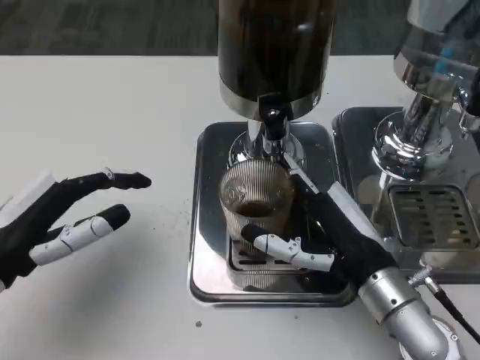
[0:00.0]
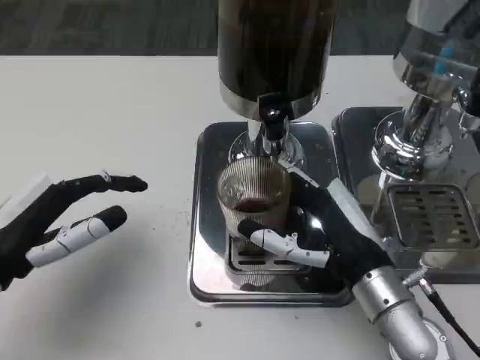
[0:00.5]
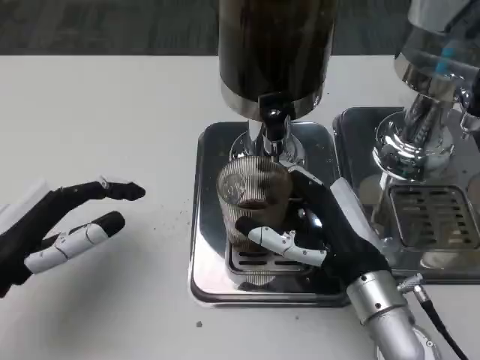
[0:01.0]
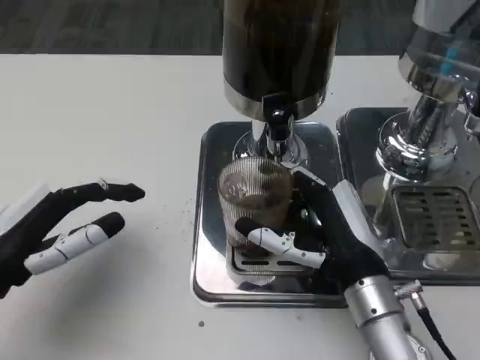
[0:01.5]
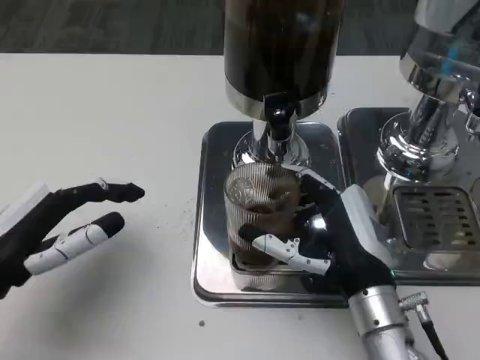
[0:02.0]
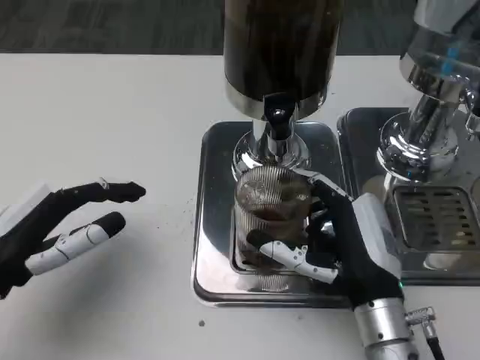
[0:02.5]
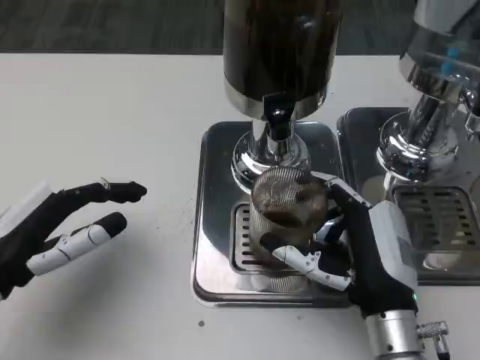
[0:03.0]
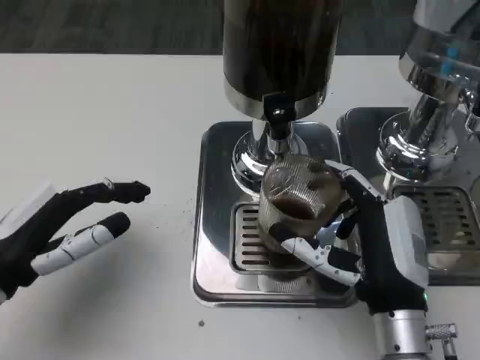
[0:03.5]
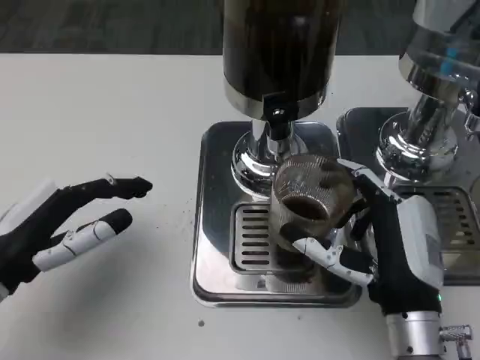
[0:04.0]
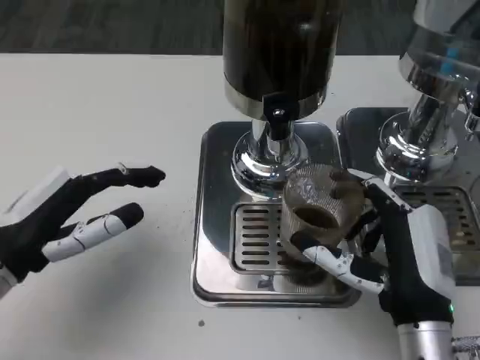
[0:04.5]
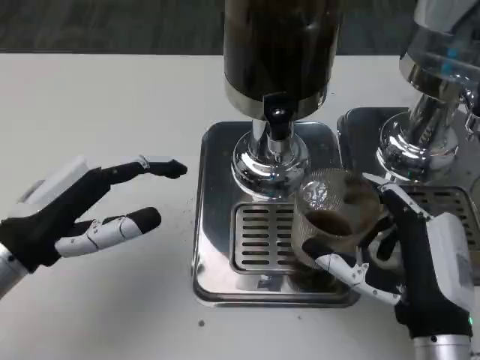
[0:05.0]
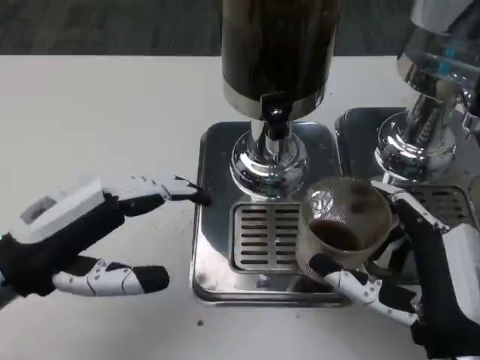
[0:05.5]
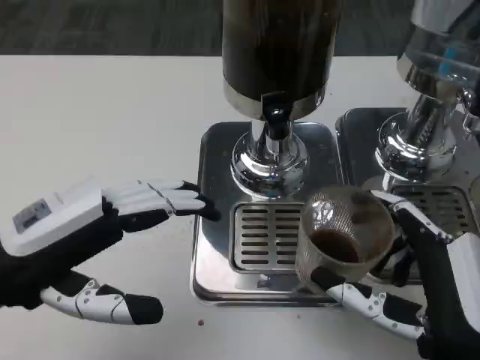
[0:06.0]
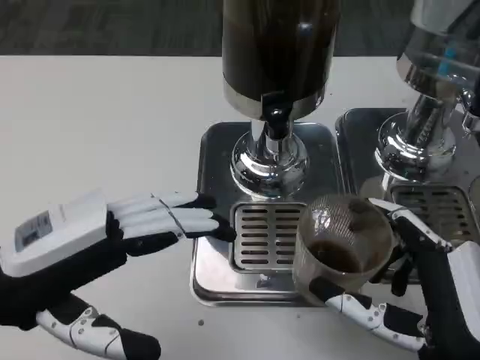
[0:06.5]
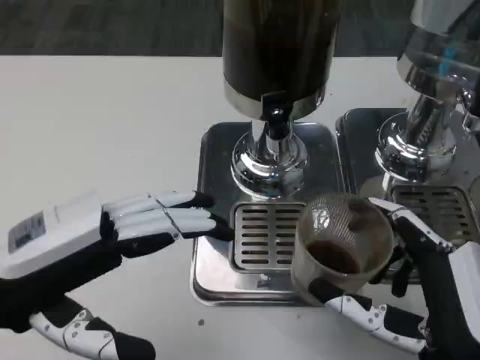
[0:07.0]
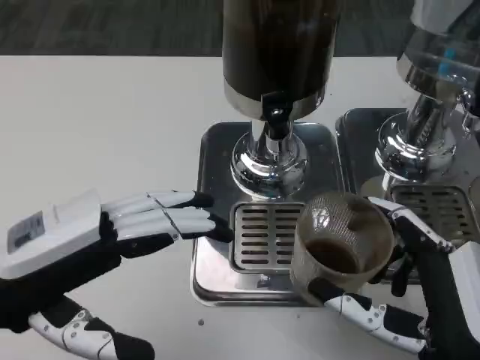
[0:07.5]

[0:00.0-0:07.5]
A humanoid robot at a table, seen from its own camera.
Task of the whole recording: Grasp the cup under the faucet to collect the drink, then remove the cup.
0:02.0 to 0:04.0: The hands make only small movements.
0:04.0 to 0:05.5: The right hand shifts approximately 5 cm backward.

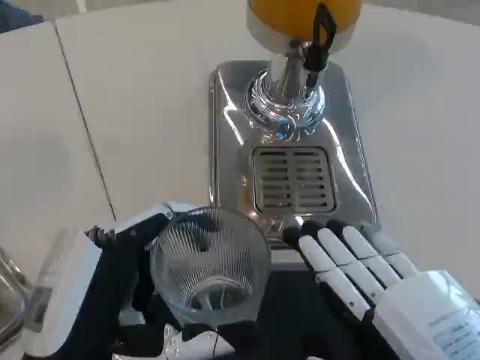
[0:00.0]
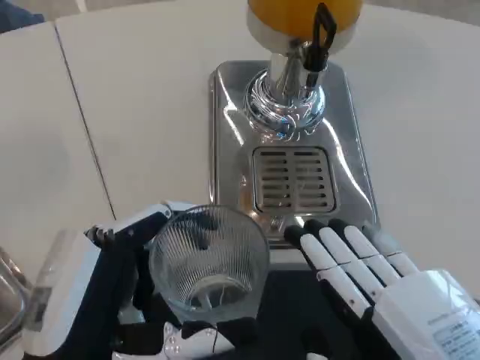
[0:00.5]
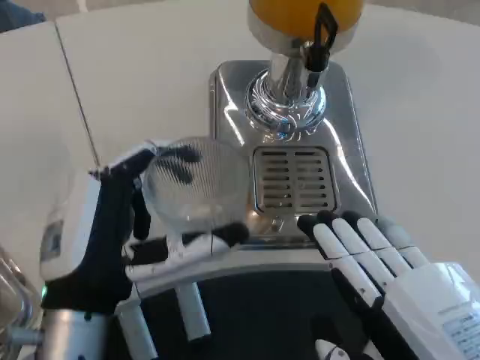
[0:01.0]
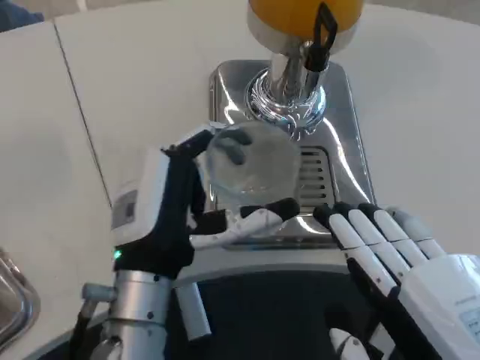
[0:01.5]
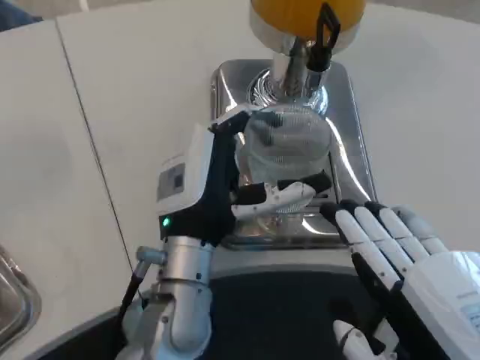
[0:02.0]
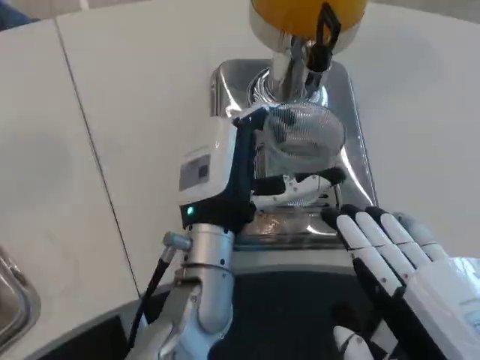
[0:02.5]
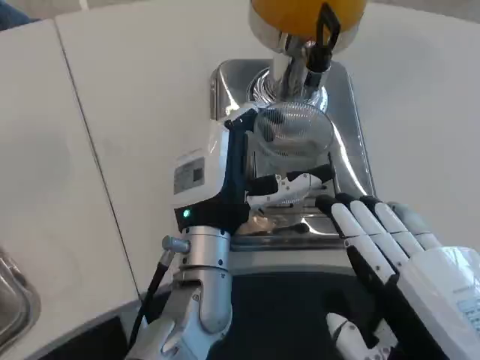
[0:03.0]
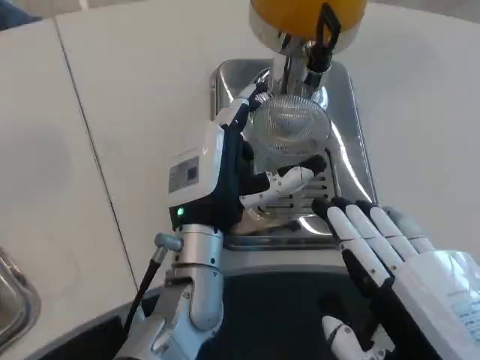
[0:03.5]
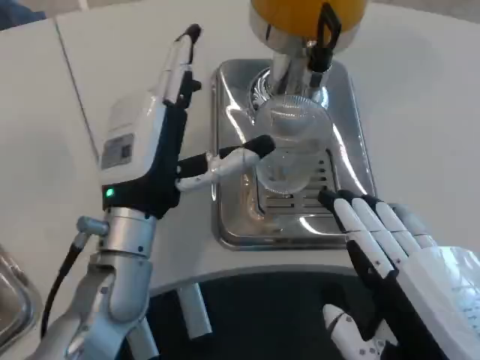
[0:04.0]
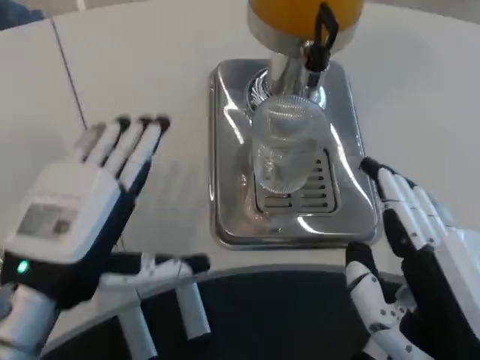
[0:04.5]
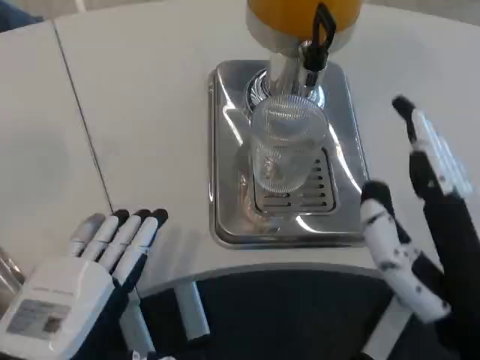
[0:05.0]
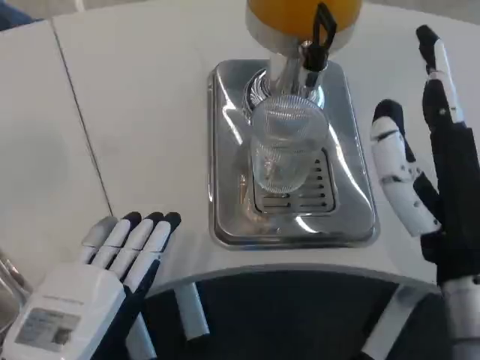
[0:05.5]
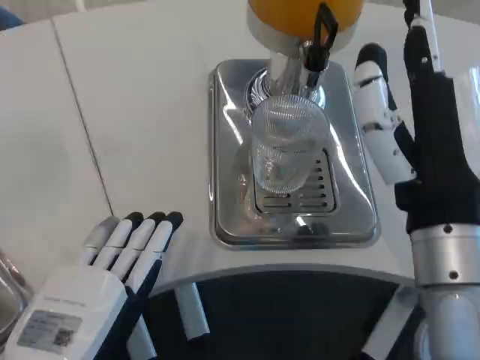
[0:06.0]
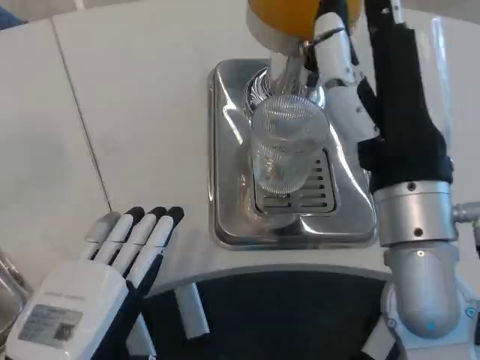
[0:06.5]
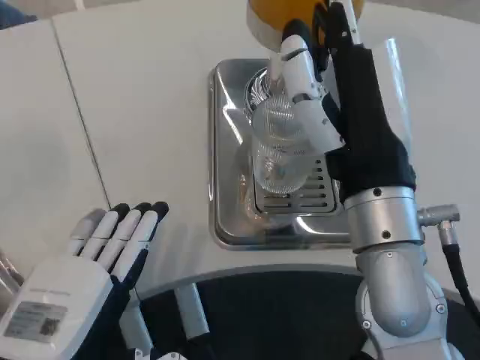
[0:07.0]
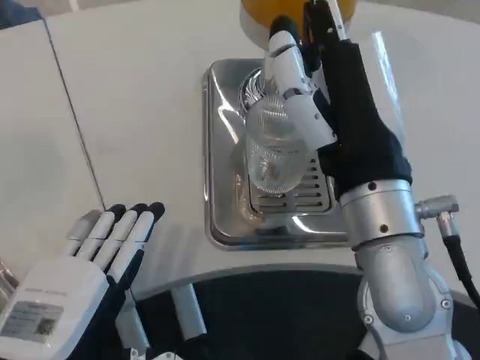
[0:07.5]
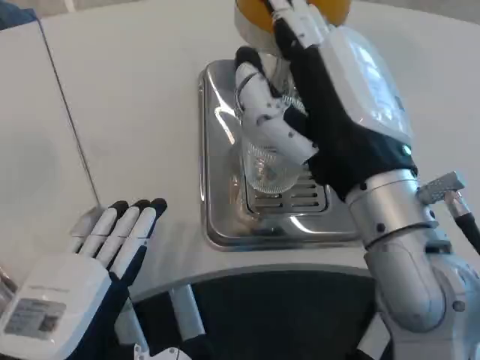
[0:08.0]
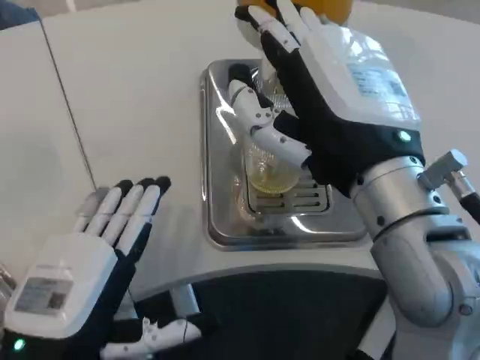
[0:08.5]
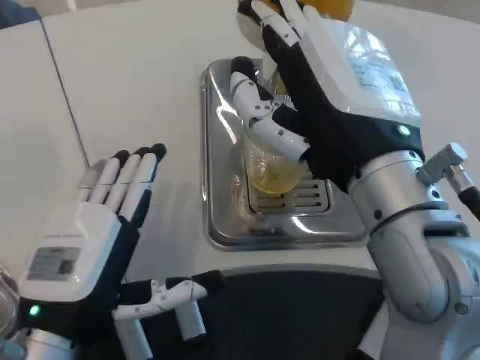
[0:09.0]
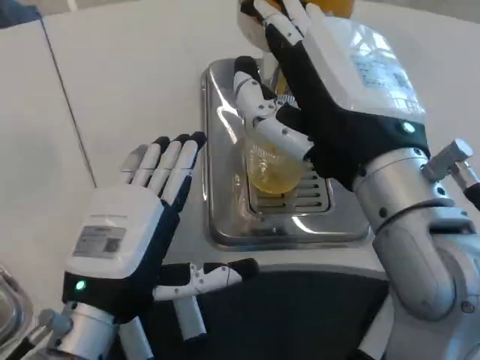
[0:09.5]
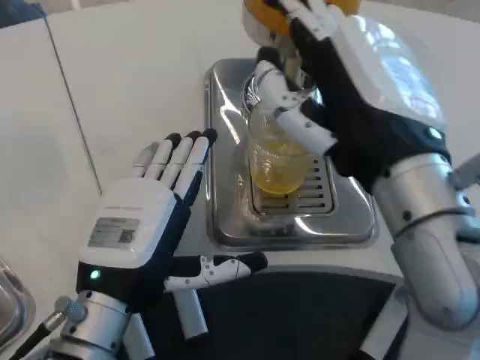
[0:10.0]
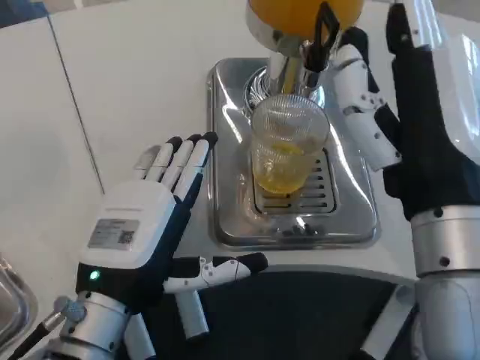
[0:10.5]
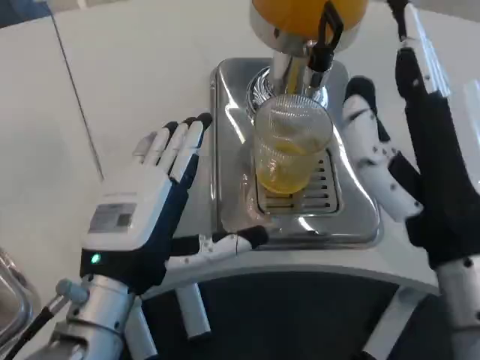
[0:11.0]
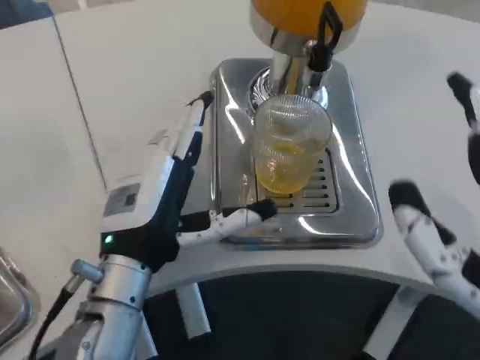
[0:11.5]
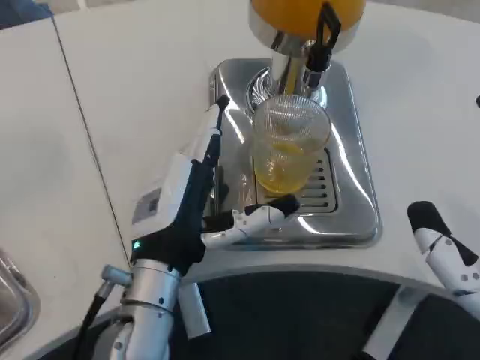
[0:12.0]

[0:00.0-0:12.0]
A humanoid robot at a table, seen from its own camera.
Task of the whole recording: Grasp the cup under the faucet to collect the drink, then remove the cup.
0:00.0 to 0:02.0: The left hand is displaced forward and to the right by about 20 cm.
0:02.0 to 0:04.0: The left hand shifts approximately 5 cm to the left.
0:04.0 to 0:06.0: The right hand heads forward, covering some 10 cm. Meanwhile the left hand goes approximately 15 cm backward.
0:08.0 to 0:10.0: The left hand is displaced forward by about 10 cm.
0:10.0 to 0:12.0: The right hand moves backward, to the right and downward, roughly 15 cm. Meanwhile the left hand ends up roughly 5 cm from where it was.

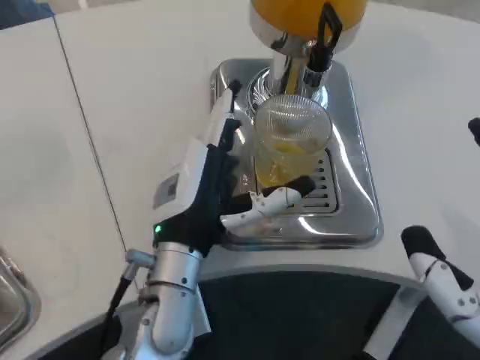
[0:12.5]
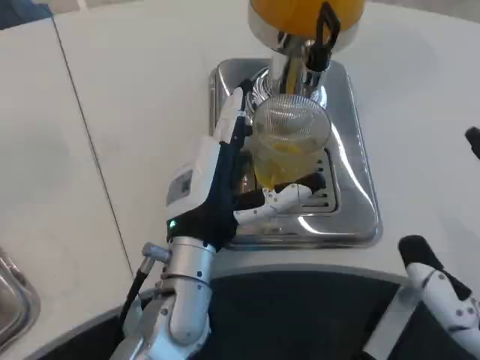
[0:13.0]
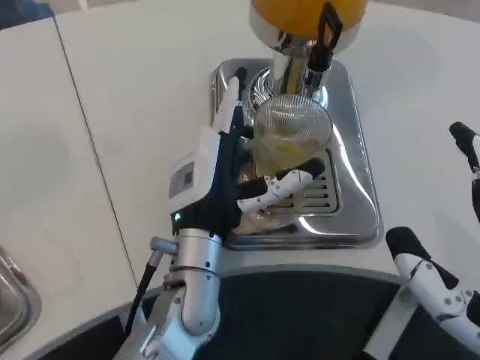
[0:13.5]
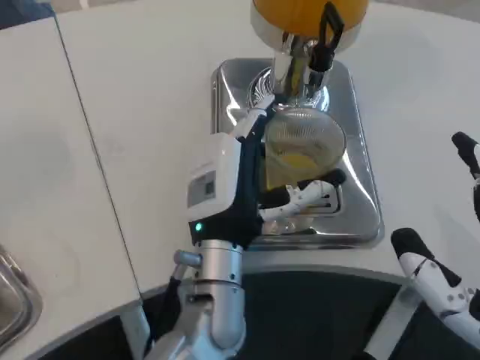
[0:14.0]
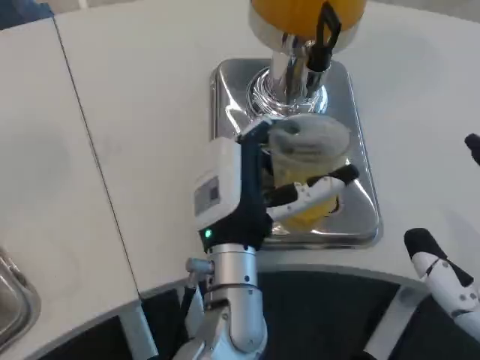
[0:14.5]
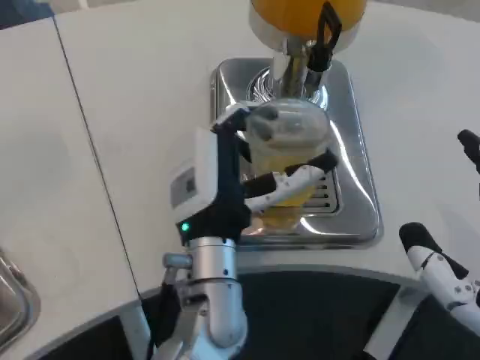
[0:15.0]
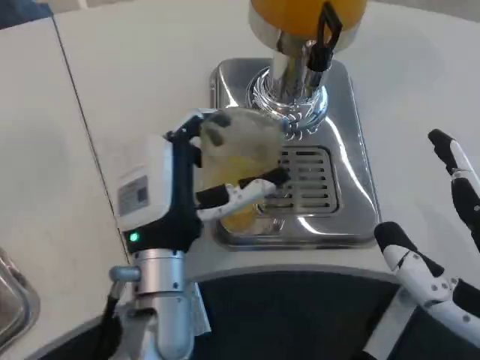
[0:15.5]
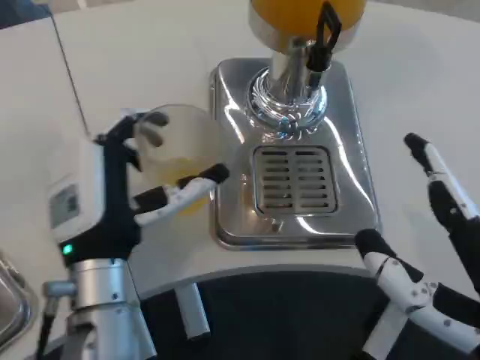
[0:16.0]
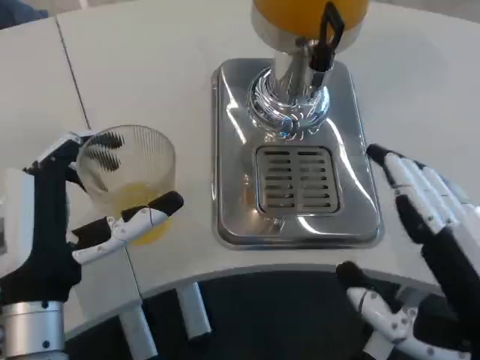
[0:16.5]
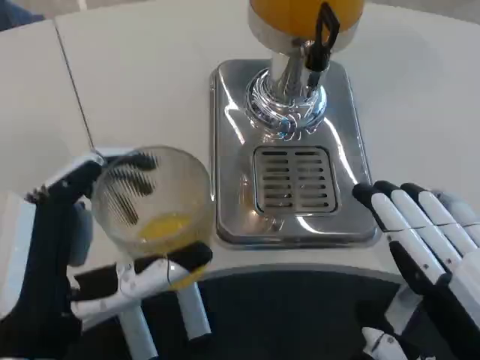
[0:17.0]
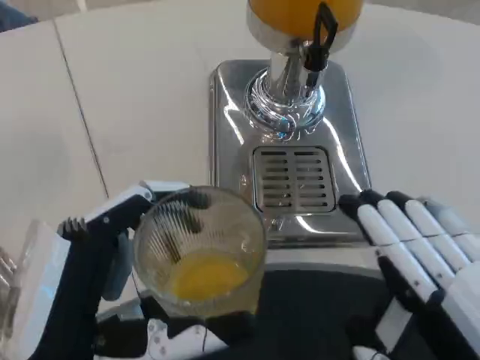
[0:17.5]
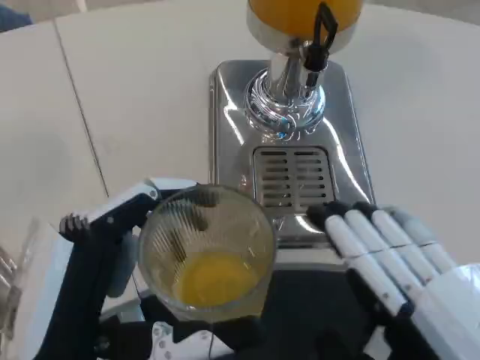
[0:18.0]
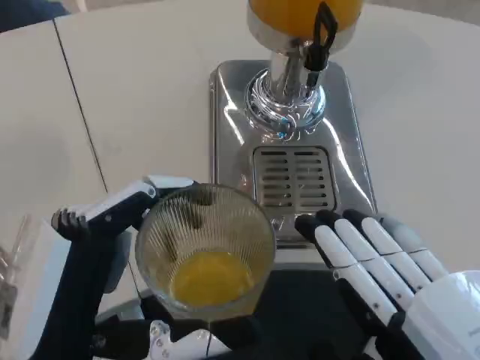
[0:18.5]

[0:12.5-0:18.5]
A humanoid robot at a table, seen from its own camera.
Task of the whole recording: Grasp the cup under the faucet to collect the drink, then remove the cup.
0:12.5 to 0:14.5: The left hand moves to the right, approximately 5 cm.
0:14.5 to 0:16.5: The left hand goes about 20 cm to the left and backward.
0:16.5 to 0:18.5: The left hand heads backward, covering about 10 cm.
